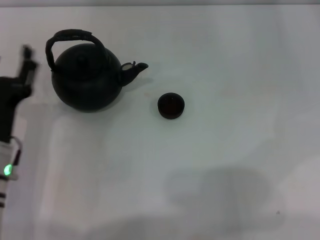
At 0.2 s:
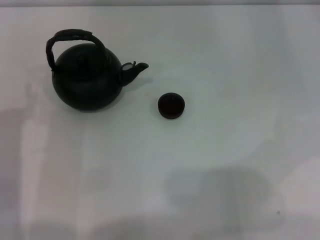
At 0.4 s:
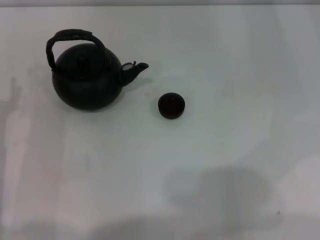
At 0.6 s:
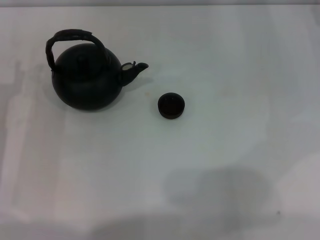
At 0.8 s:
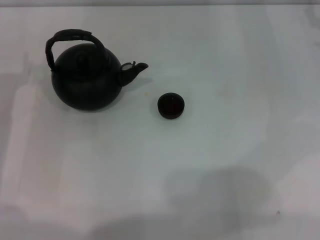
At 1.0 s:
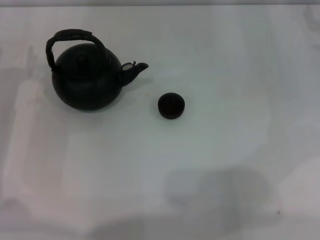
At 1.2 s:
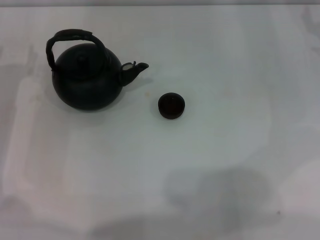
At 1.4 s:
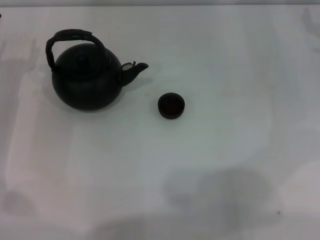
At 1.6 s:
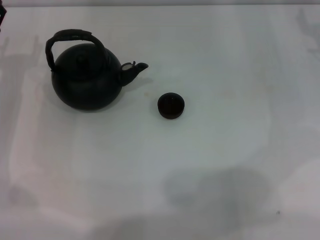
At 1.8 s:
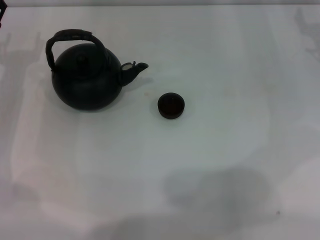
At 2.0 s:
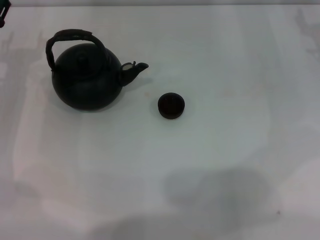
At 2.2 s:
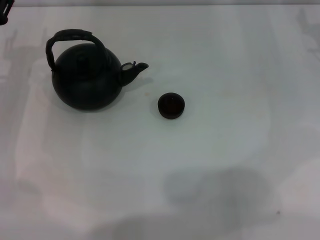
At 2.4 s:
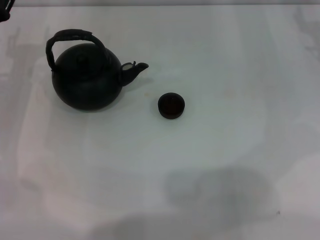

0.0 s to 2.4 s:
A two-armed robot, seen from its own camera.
Task of the whole recording: Grasp the handle of the teapot with one hand and pour tea into the teacup.
0.0 to 1.2 s: The left gripper is displaced forward and to the left by approximately 10 cm.
